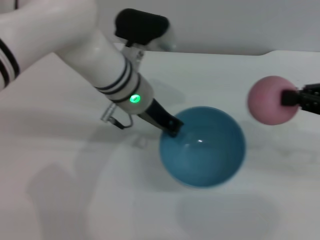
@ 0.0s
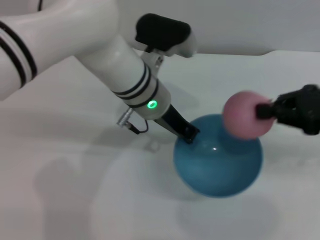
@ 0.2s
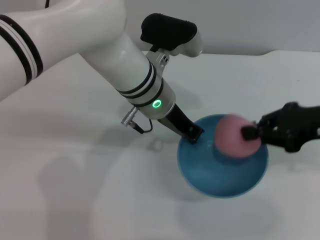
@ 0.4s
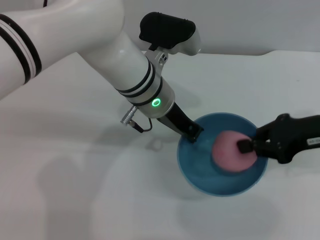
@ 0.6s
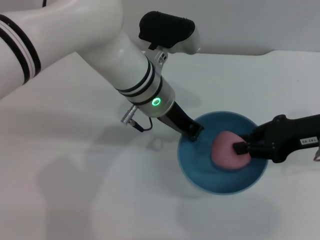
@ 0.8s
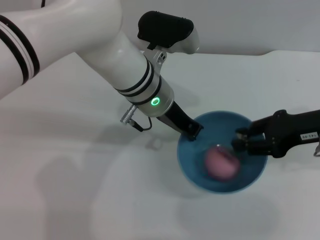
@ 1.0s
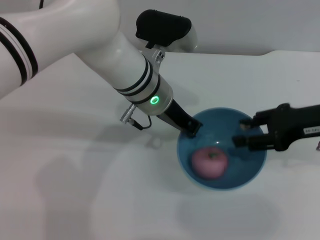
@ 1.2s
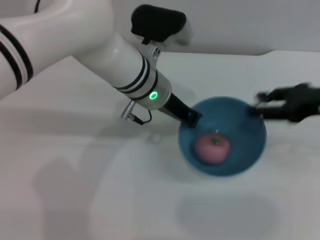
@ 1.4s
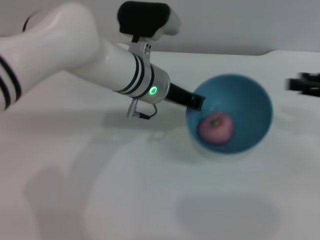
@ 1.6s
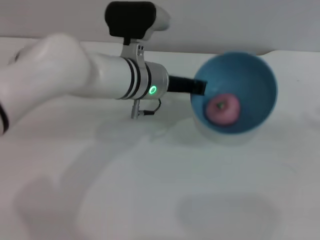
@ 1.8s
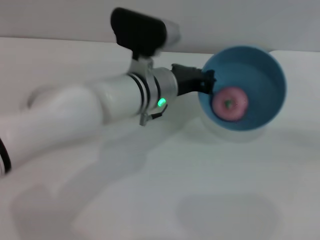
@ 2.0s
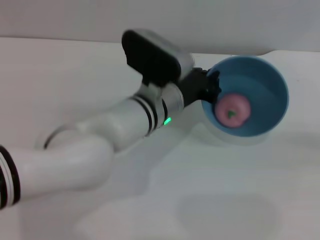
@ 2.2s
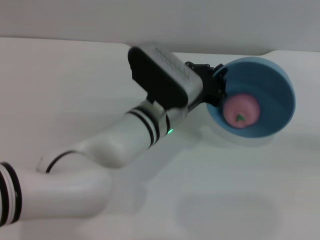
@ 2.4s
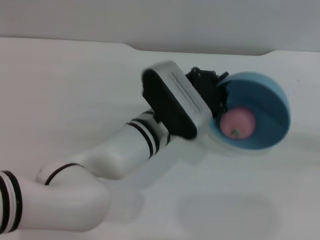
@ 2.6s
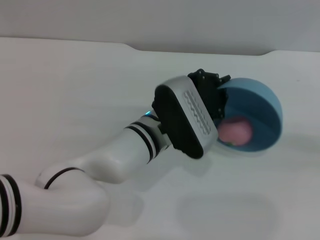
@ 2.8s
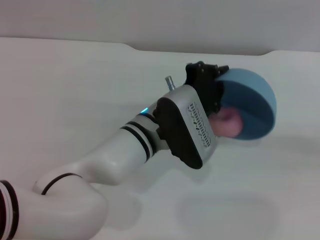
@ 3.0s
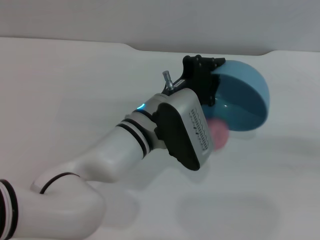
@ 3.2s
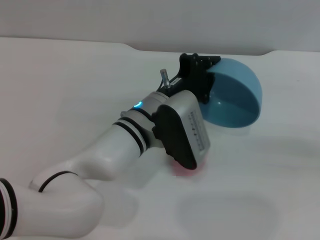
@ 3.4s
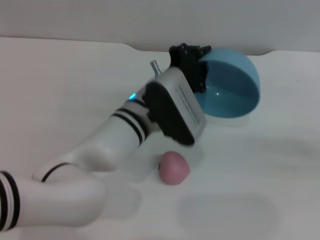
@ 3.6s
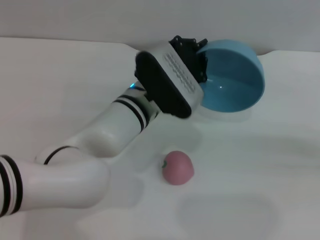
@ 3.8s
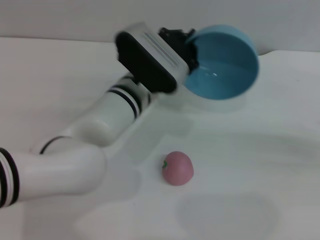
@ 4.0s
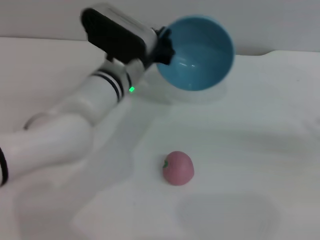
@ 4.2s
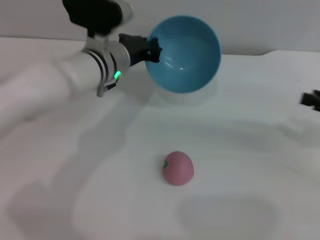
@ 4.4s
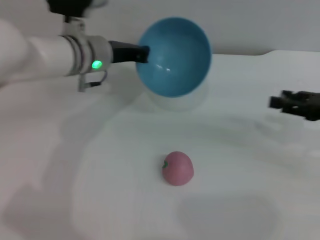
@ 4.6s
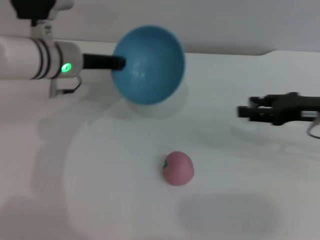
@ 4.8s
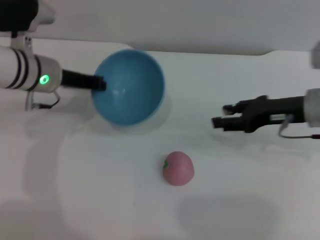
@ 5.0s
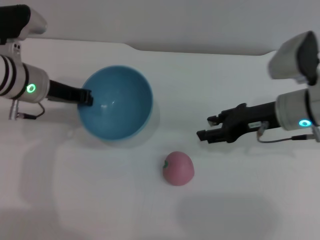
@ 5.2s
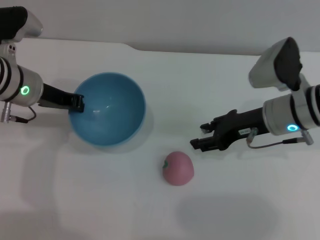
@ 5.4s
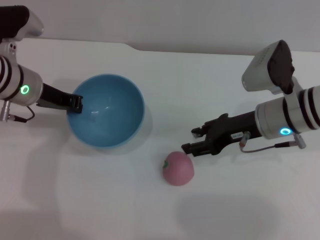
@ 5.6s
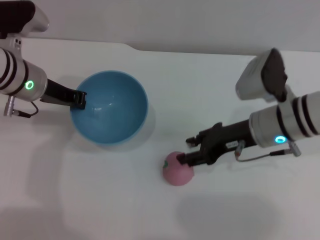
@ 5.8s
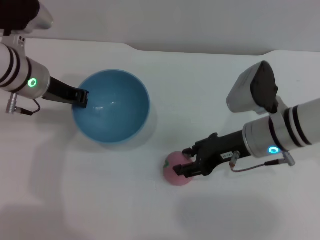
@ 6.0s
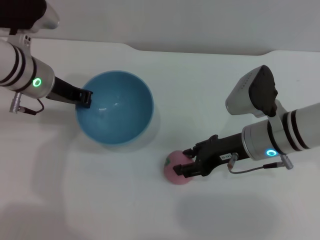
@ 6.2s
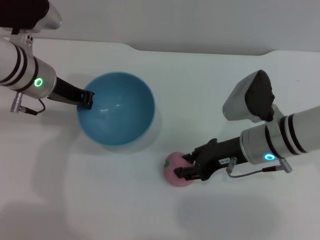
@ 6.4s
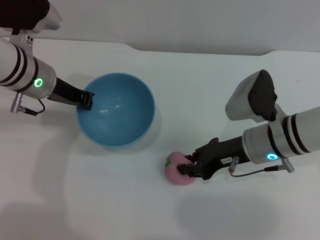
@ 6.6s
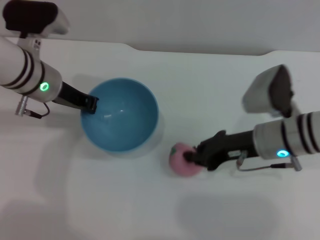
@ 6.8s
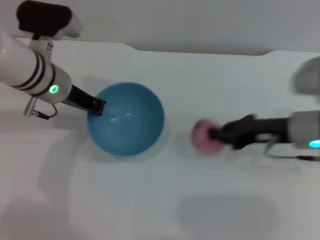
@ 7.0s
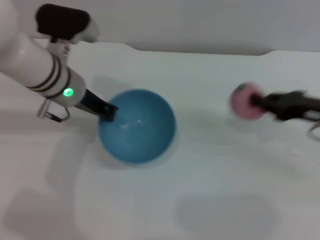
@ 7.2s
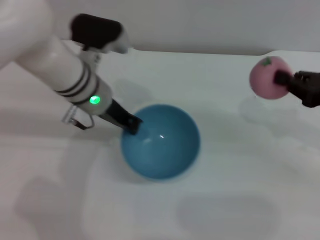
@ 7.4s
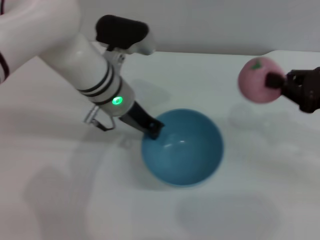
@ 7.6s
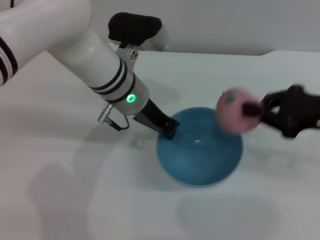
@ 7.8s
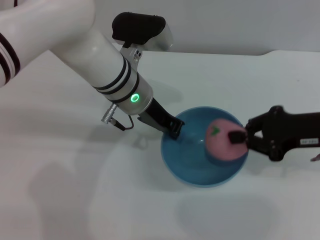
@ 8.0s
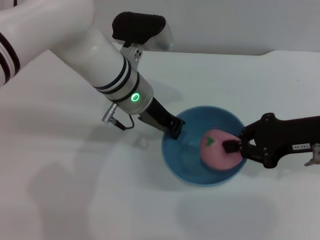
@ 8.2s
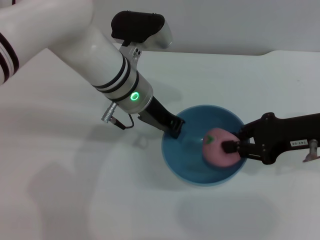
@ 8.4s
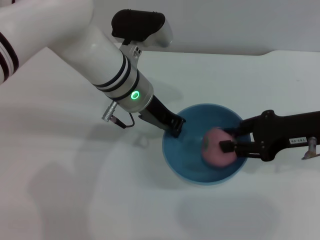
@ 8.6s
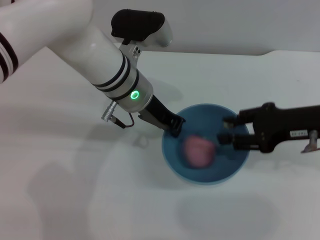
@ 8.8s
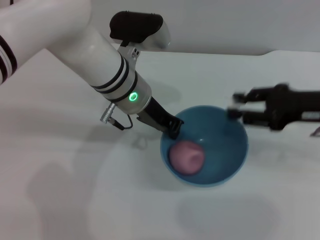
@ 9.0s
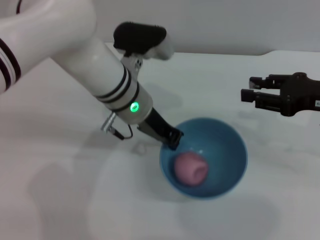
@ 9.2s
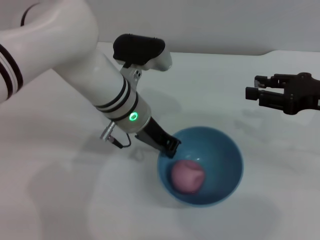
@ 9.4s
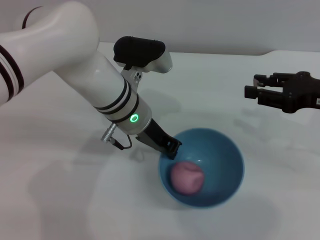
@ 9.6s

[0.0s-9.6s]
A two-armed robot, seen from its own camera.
Task of the whole recording: put the peach into the blue bowl and pour it out repeatedly.
Step, 0.0s to 1.0s: Place the peach into the bowl.
Step, 1.4s to 3.6s: Pour the peach out of bowl.
Step, 3.8s to 7.0s: Pick up the peach with the right gripper.
Step, 7.2s to 9.0s: Place the peach into the bowl.
0.0s to 1.6s: The right gripper travels to the left and back again, about 5 cm each way, and opens.
1.6s to 3.2s: The right gripper moves to the right and backward, approximately 10 cm. The left gripper shifts about 10 cm backward.
3.2s to 4.8s: Both grippers travel together to the left and forward, approximately 20 cm.
4.8s to 6.4s: The right gripper goes approximately 15 cm to the left and downward.
6.4s to 8.0s: The left gripper moves to the right, approximately 15 cm, while the right gripper goes roughly 15 cm to the right and upward, and closes up.
8.0s to 9.6s: The right gripper opens its fingers.

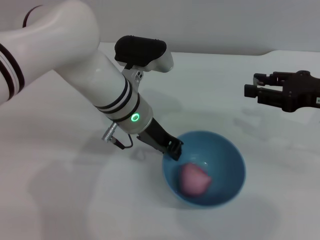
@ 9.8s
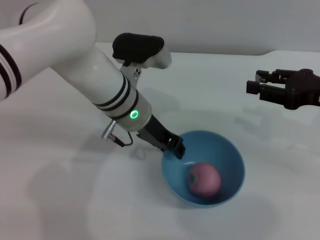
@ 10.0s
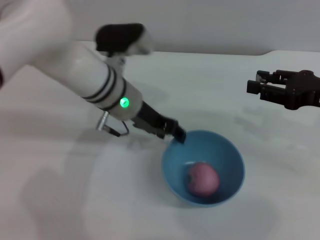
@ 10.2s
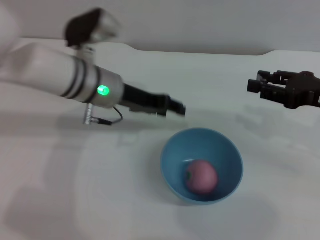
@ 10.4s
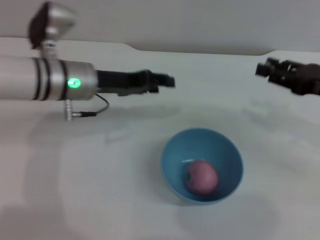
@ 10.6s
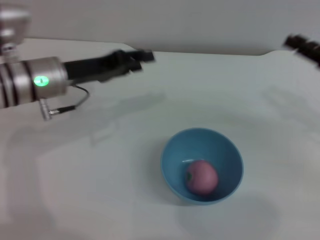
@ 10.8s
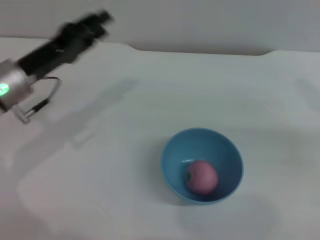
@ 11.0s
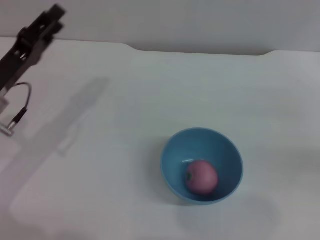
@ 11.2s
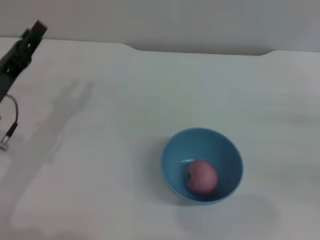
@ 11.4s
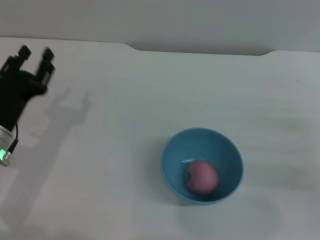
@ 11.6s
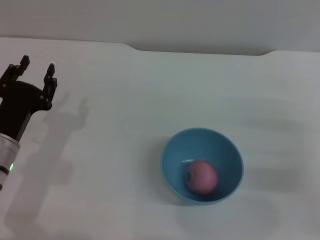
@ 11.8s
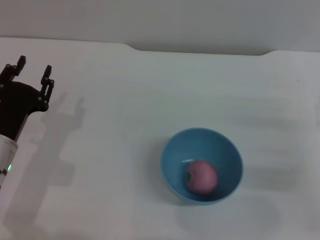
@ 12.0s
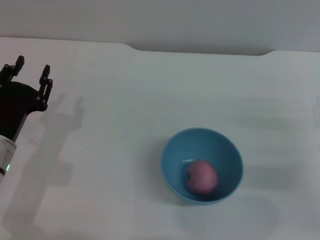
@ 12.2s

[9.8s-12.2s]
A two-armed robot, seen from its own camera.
Task of the whole recording: put the peach into the blue bowl and pour it out repeatedly.
9.8s to 11.0s: The right gripper shifts roughly 5 cm to the right, while the left gripper goes some 15 cm to the left, and opens up.
11.0s to 12.2s: The right gripper travels downward by roughly 5 cm; the left gripper moves downward and backward, roughly 10 cm.

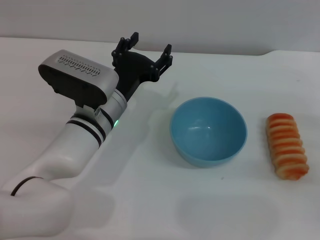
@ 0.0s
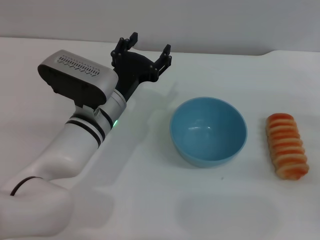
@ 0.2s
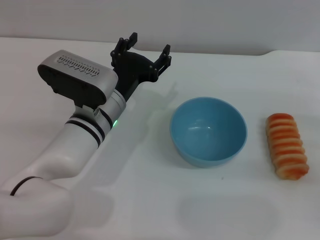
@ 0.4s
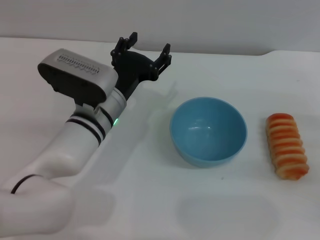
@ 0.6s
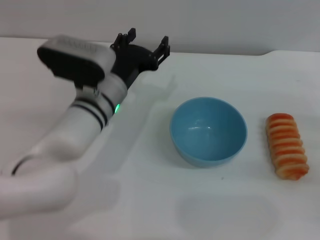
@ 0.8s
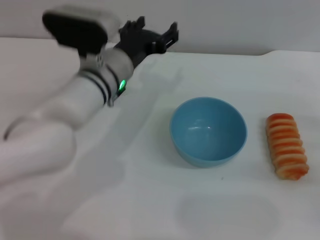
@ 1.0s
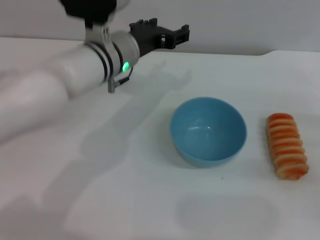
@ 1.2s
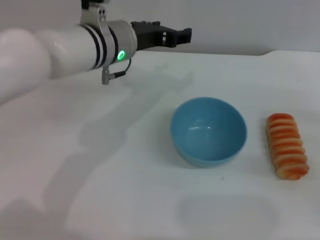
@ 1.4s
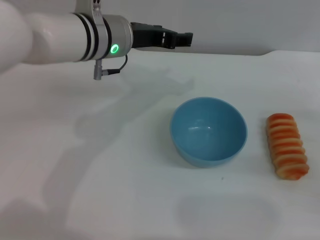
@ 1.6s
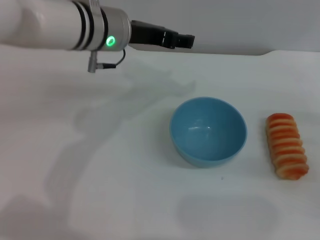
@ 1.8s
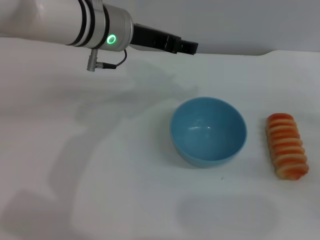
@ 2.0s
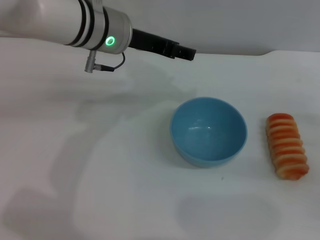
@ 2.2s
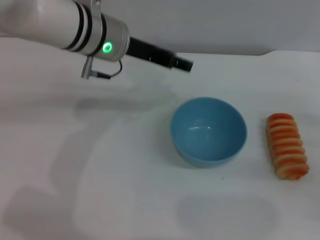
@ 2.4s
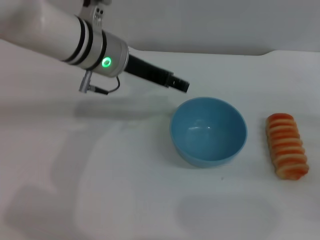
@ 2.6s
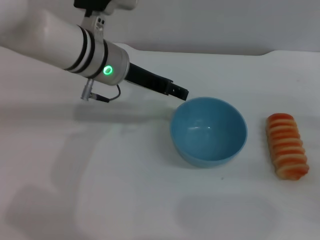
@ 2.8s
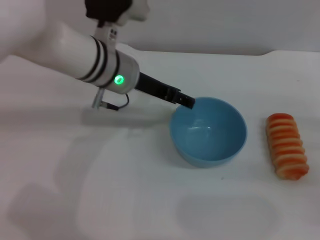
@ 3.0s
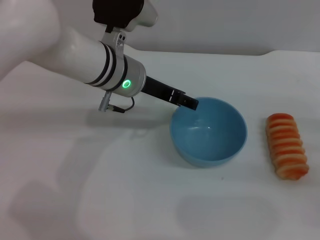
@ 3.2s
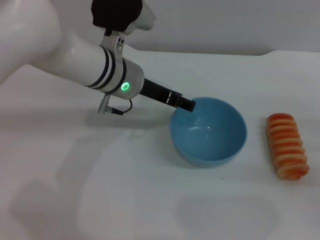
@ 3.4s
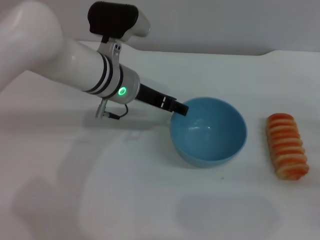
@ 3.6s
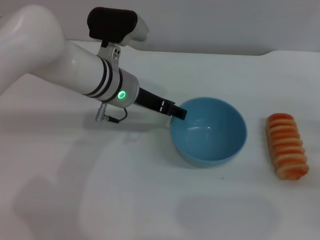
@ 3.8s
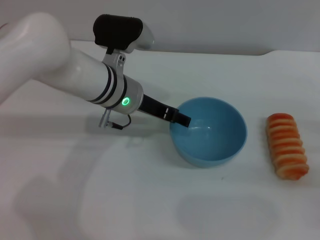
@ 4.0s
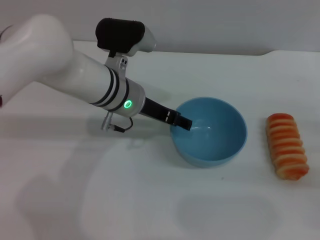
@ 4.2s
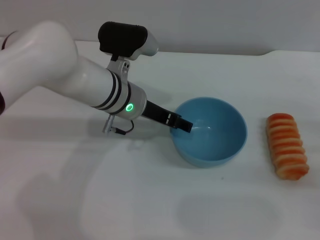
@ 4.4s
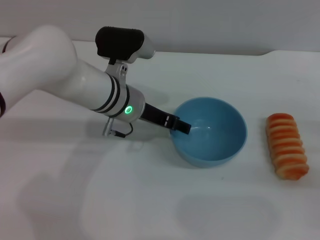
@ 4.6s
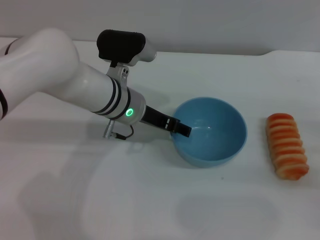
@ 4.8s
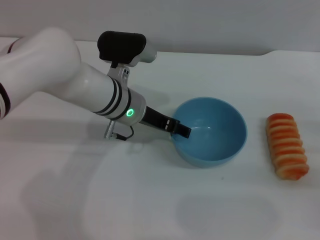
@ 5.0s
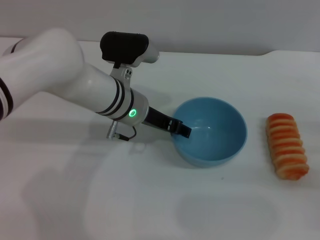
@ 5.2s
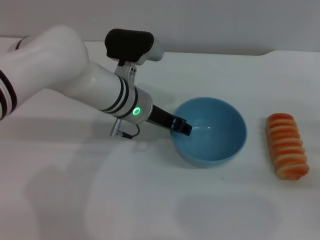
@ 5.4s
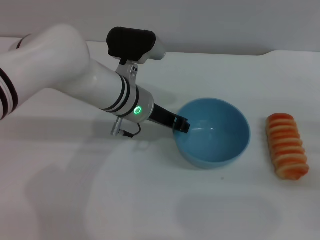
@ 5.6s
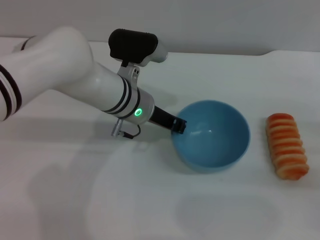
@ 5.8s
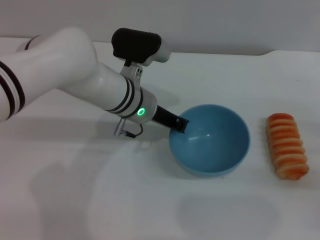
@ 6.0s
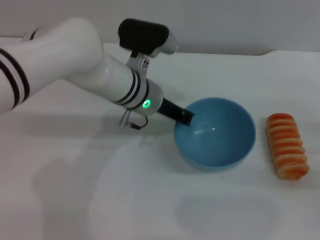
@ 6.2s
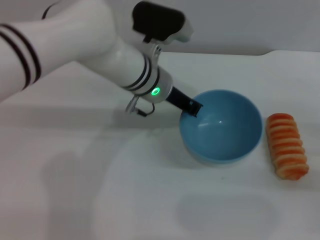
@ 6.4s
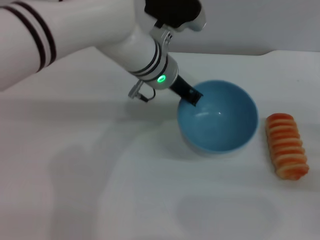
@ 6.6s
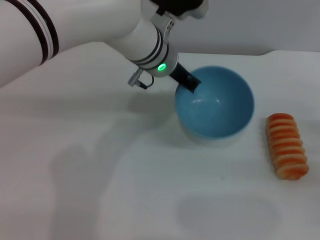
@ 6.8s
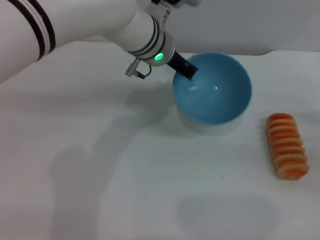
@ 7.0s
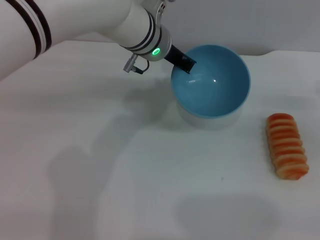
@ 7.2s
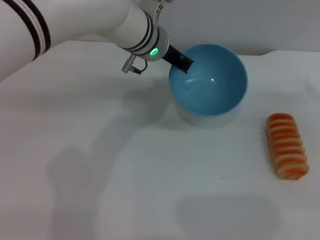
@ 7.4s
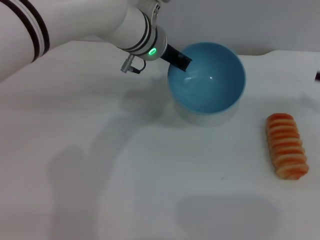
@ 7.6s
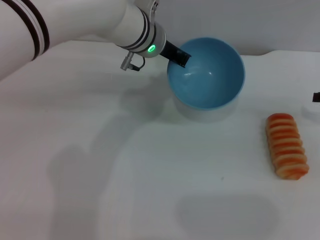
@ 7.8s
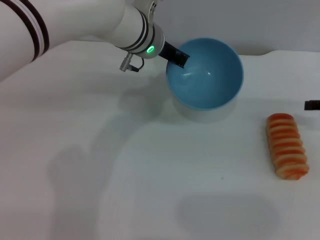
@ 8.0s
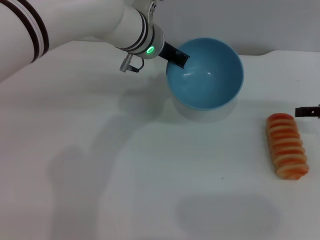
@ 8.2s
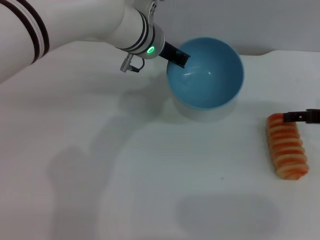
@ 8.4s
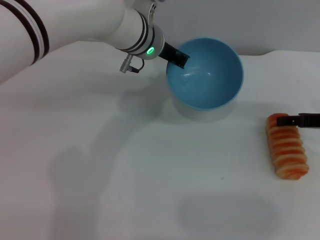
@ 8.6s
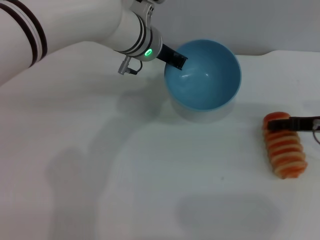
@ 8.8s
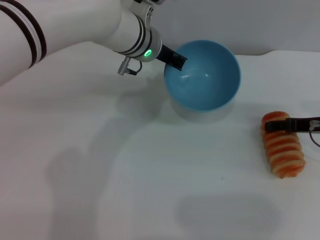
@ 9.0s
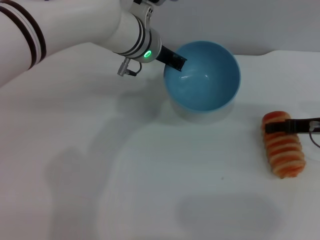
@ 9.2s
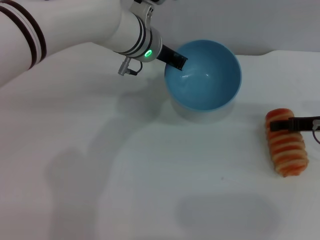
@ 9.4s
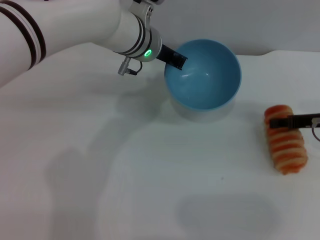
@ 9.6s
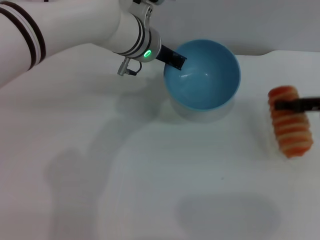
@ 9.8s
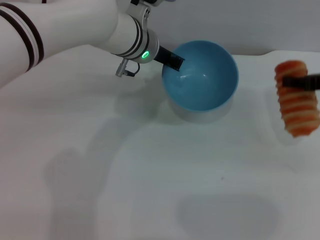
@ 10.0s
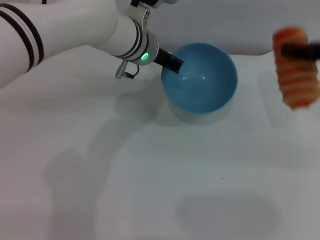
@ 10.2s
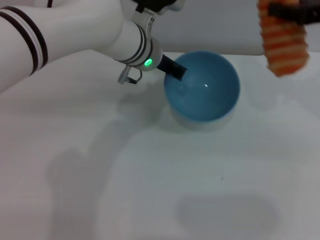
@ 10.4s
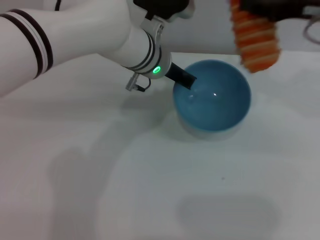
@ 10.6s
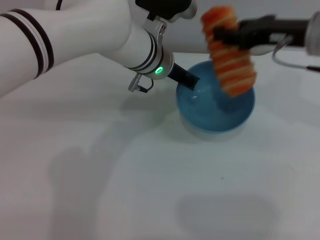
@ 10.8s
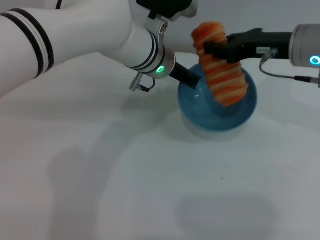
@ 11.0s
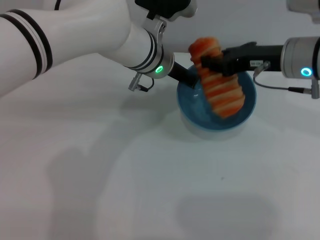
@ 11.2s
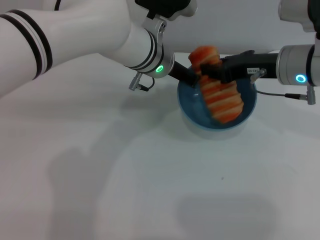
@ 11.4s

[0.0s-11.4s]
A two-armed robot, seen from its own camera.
Task of the whole recording: put the bread into the blue bowl and pour it out repeatedly.
Step, 0.0s to 6.8s: Pick up the bowl with the left gripper.
Step, 7.0s to 9.8s: Pick up the bread with the right gripper.
0.0s to 1.4s: The left gripper shifts about 10 cm upward and forward.
2.8s to 4.2s: The left gripper is displaced downward by approximately 5 cm.
4.2s to 5.6s: The grippers make only small movements.
5.6s to 7.2s: The right gripper travels forward by roughly 5 cm. Meanwhile the left gripper travels upward and forward by about 10 cm, and closes.
7.2s to 8.6s: The right gripper travels to the left by about 5 cm.
8.6s to 10.0s: The right gripper goes approximately 5 cm upward, and closes.
10.0s to 11.4s: The right gripper goes about 10 cm to the left.
